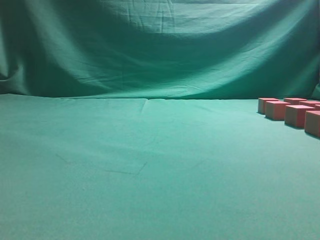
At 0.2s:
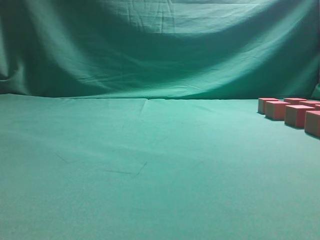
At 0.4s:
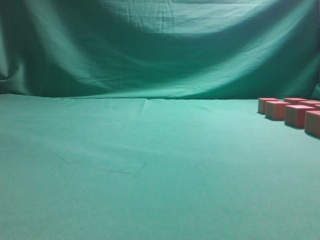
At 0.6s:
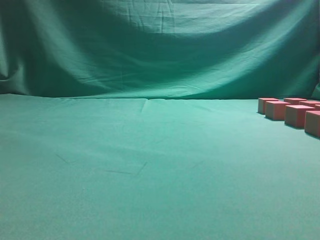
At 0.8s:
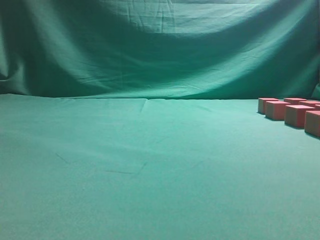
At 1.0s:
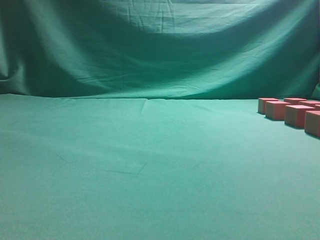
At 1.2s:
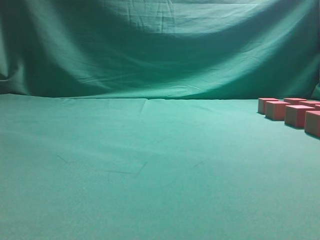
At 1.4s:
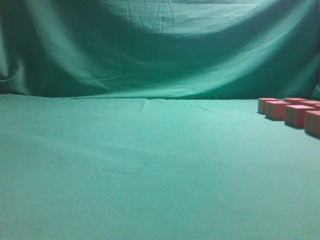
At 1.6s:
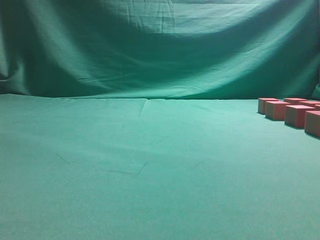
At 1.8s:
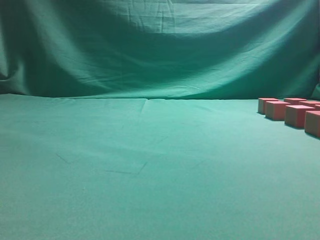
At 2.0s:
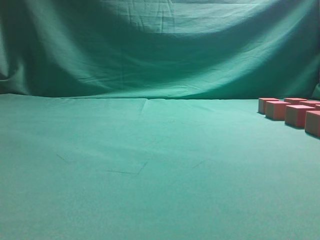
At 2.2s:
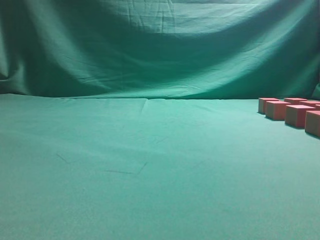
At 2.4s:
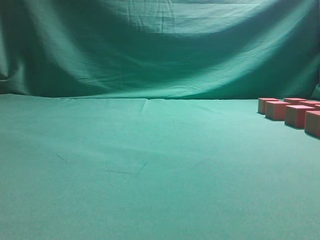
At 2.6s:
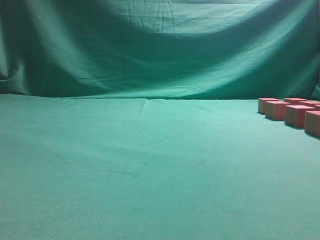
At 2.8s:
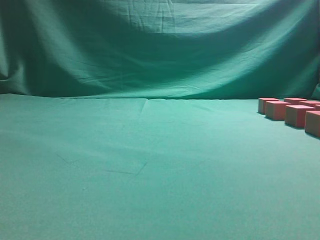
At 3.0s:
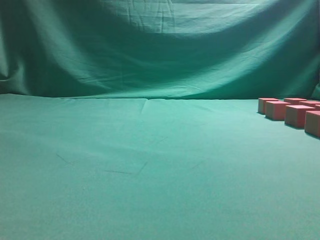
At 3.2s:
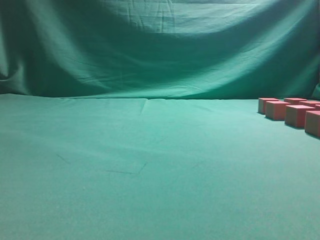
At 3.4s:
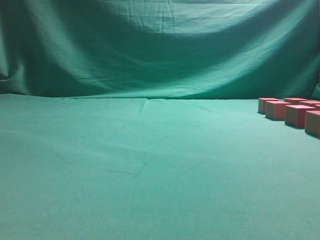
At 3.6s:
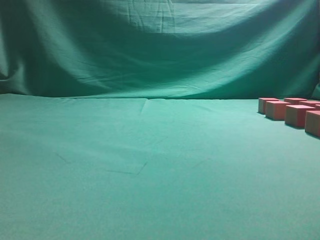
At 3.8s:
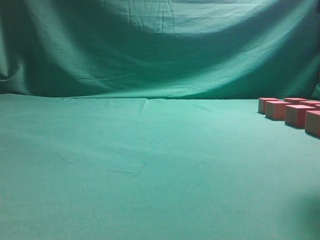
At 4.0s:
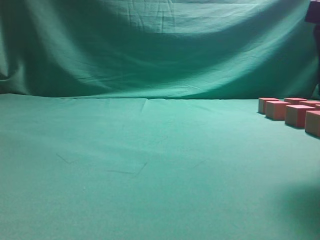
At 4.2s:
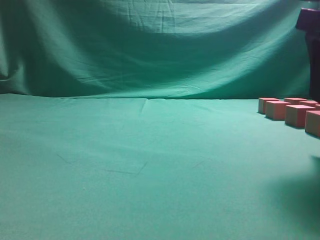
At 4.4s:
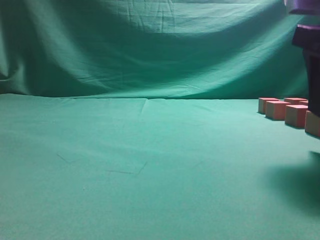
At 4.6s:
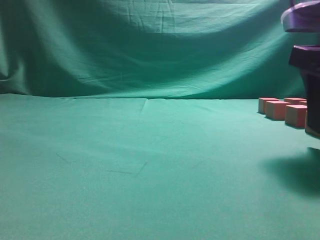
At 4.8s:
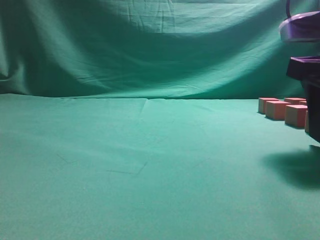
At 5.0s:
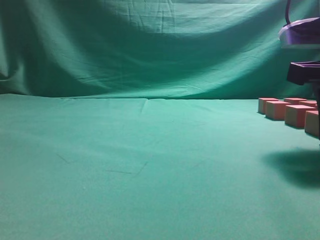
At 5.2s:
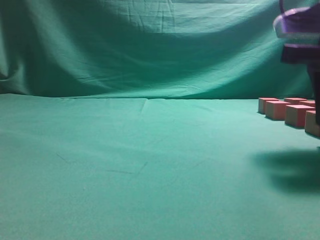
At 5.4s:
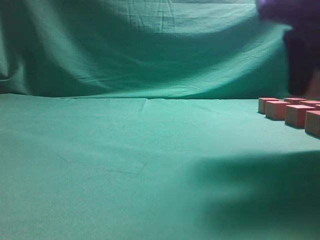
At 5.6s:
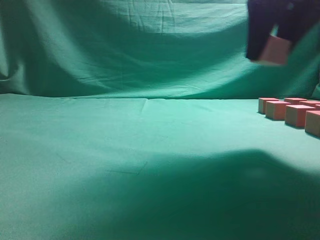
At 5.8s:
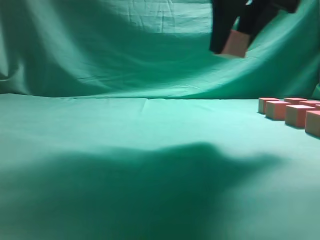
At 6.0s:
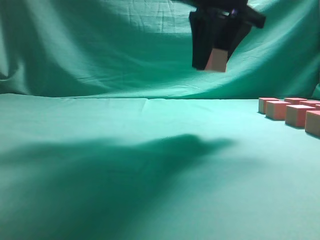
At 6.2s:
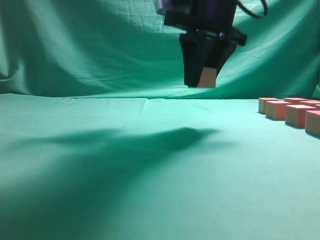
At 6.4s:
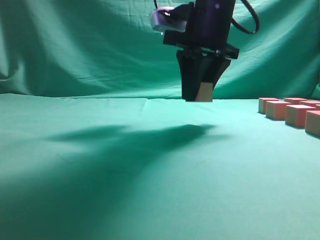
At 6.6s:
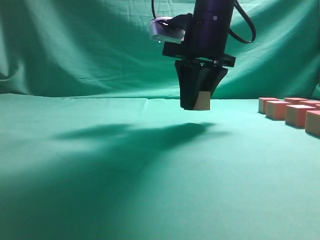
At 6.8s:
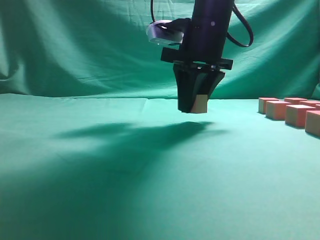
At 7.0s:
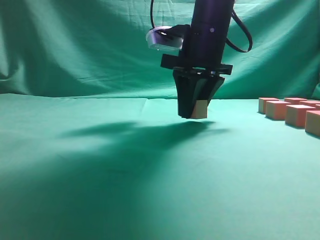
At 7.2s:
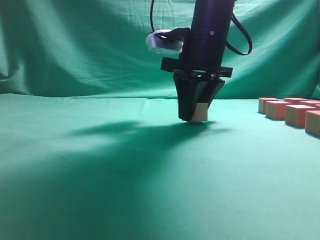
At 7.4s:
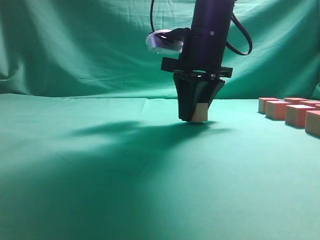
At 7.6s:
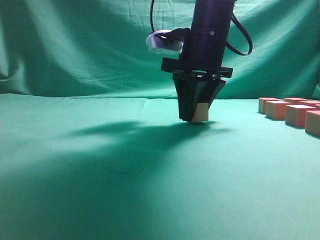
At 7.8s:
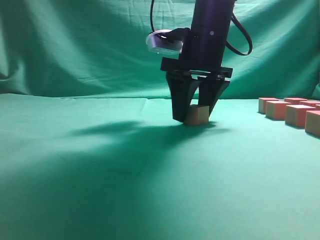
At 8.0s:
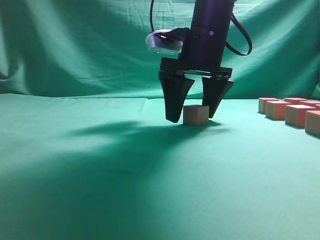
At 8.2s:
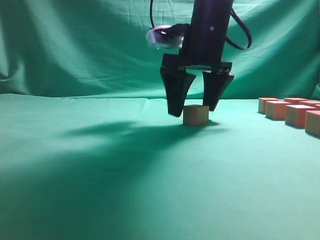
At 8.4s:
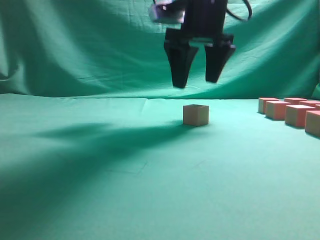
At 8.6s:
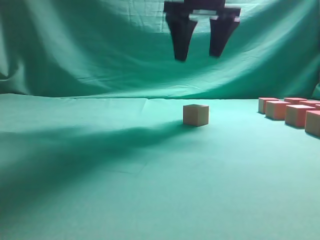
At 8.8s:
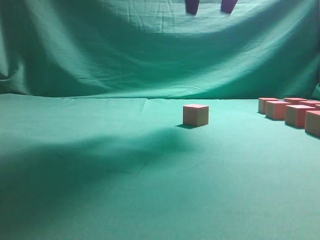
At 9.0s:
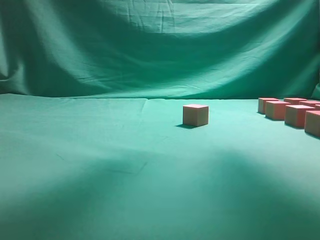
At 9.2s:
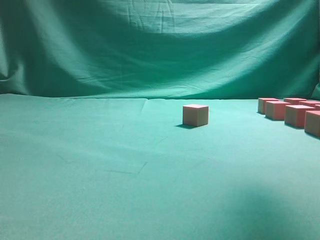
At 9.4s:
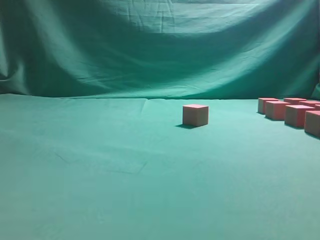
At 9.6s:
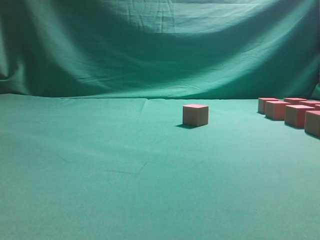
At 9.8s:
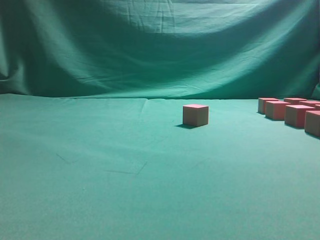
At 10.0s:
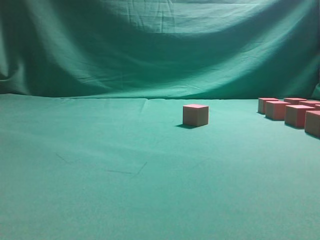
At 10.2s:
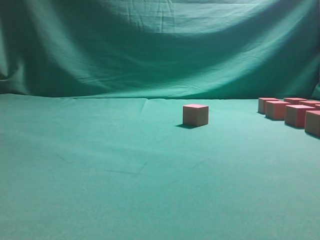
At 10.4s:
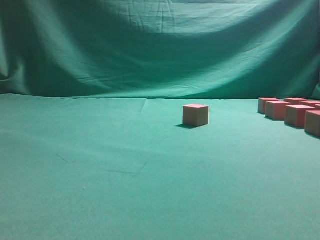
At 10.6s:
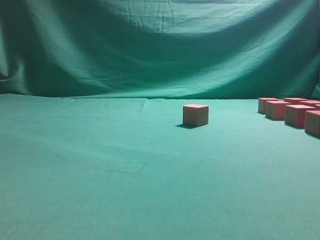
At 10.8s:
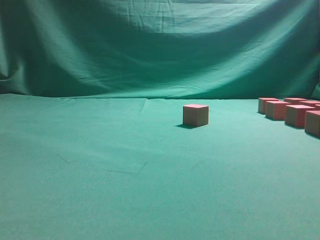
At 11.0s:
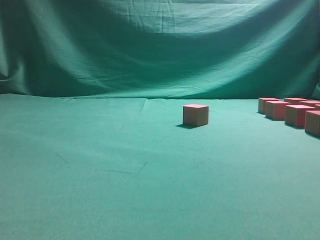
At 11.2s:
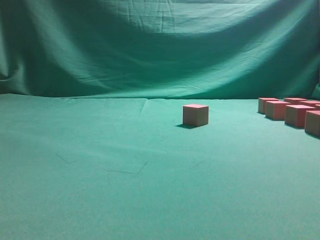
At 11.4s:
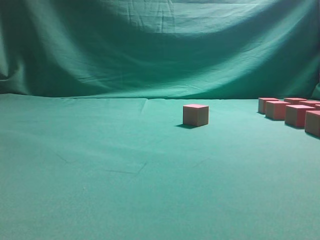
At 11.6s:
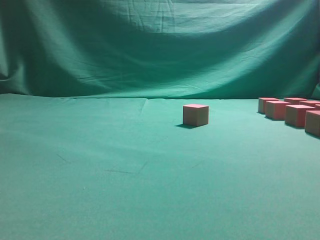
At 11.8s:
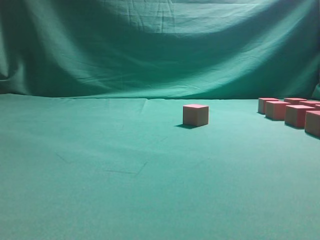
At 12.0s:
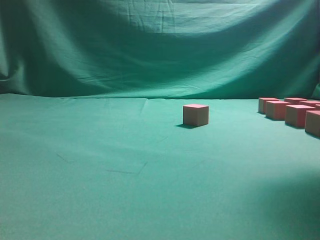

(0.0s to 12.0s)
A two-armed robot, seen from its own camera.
Task of the whole recording: pick up the multiple cubes in two columns one by one and place them in another position on the table.
Step, 0.0s - 5.2s: Pick up the block on the table.
Step, 5.4s - 8.6s: Place the block at the correct position to assemble the letter S.
Step, 8.8s - 11.8s: Pick up the block on the table.
3.0s - 4.4s: The right gripper travels forward, downward and to the left by roughly 15 cm, and opens.
4.4s - 6.0s: The right gripper is displaced to the left, forward and upward by some 15 cm, and closes up.
6.0s - 7.6s: The right gripper shifts approximately 10 cm downward.
7.6s - 9.0s: The right gripper travels upward and to the right by approximately 25 cm, and opens up.
9.0s - 10.4s: The right gripper travels downward, to the right and backward by about 25 cm.
10.4s - 12.0s: The right gripper moves upward, approximately 5 cm, and closes up.

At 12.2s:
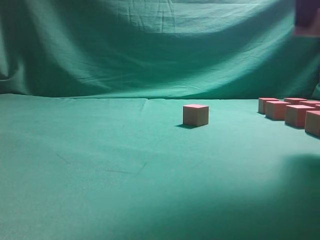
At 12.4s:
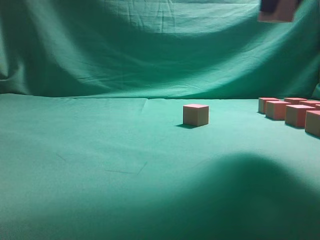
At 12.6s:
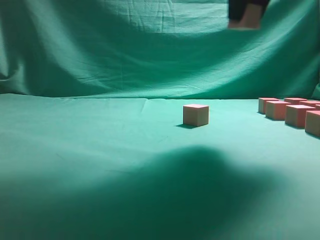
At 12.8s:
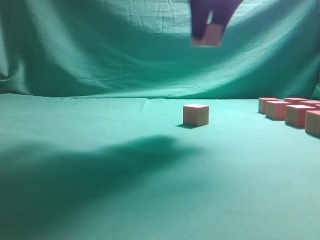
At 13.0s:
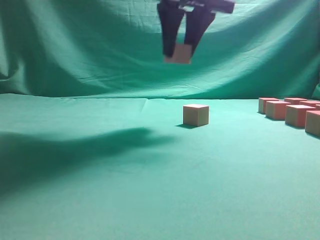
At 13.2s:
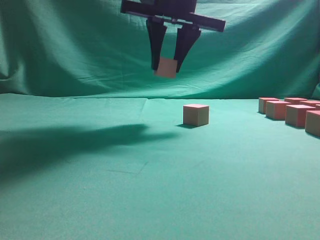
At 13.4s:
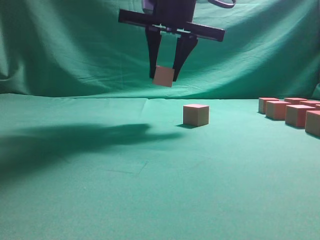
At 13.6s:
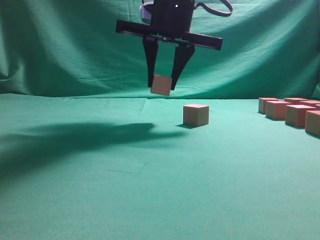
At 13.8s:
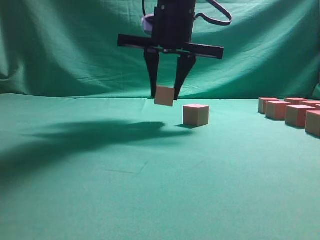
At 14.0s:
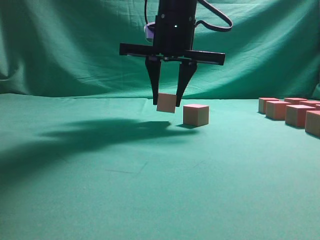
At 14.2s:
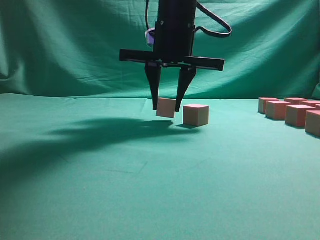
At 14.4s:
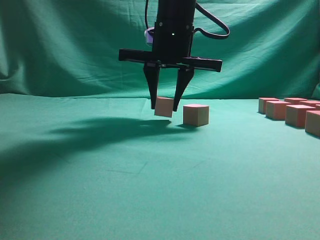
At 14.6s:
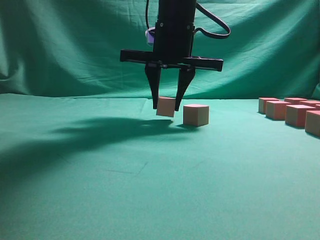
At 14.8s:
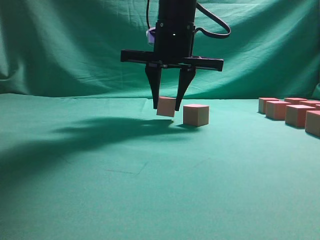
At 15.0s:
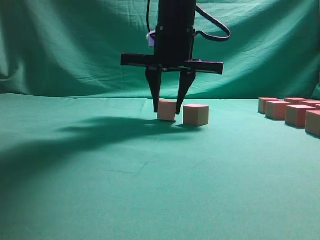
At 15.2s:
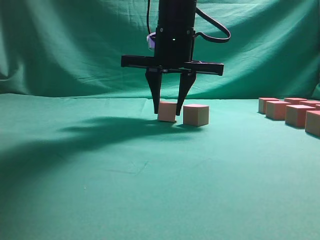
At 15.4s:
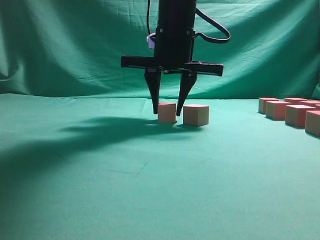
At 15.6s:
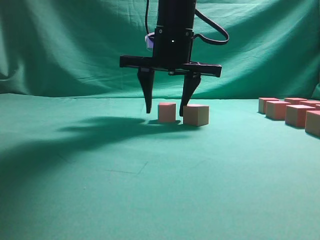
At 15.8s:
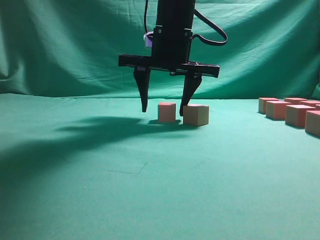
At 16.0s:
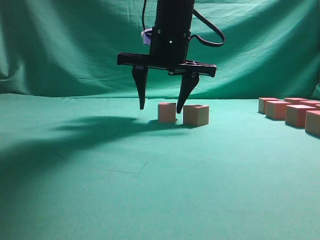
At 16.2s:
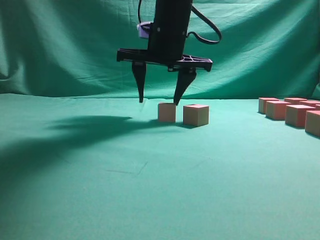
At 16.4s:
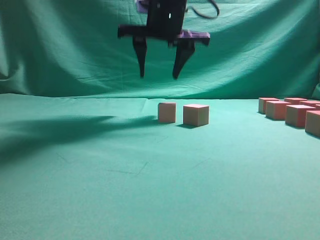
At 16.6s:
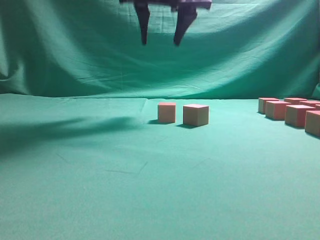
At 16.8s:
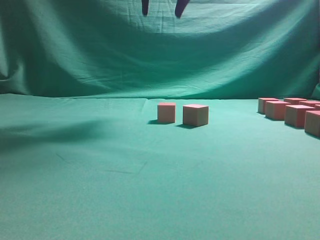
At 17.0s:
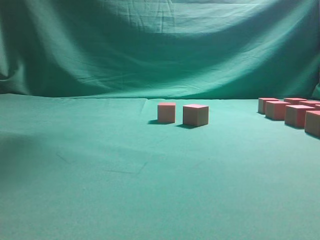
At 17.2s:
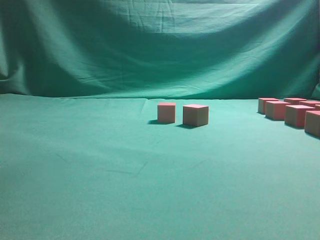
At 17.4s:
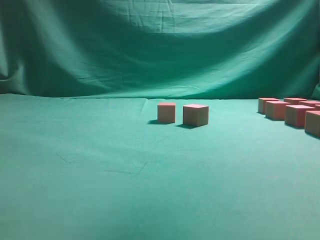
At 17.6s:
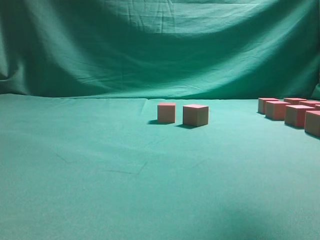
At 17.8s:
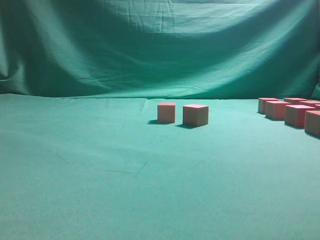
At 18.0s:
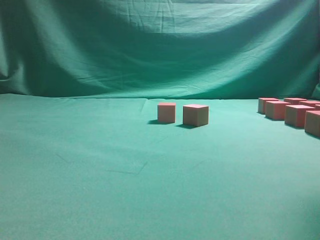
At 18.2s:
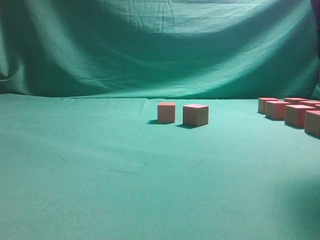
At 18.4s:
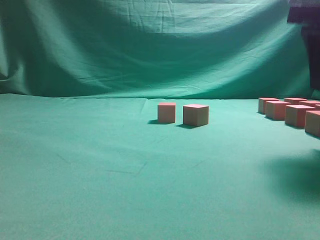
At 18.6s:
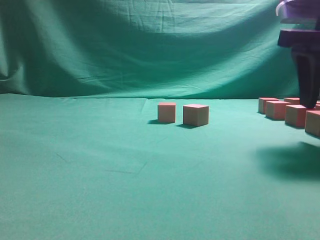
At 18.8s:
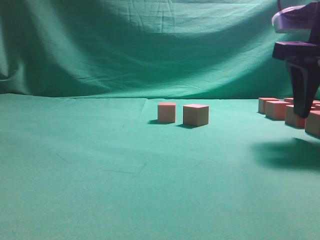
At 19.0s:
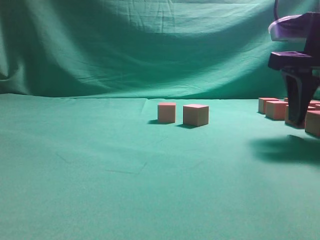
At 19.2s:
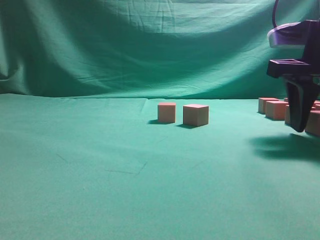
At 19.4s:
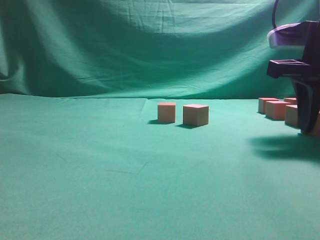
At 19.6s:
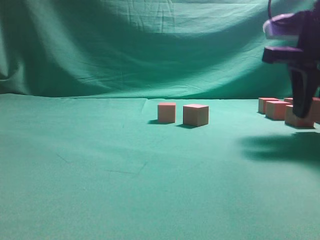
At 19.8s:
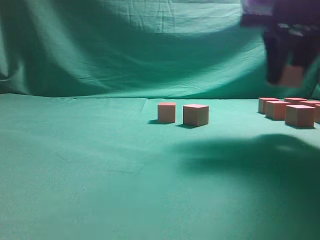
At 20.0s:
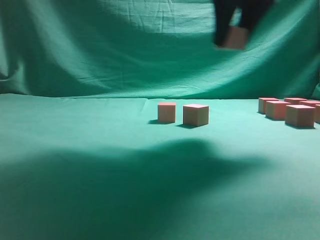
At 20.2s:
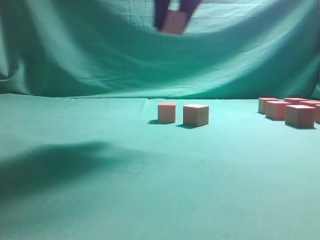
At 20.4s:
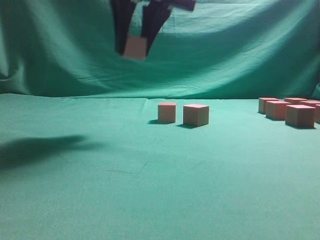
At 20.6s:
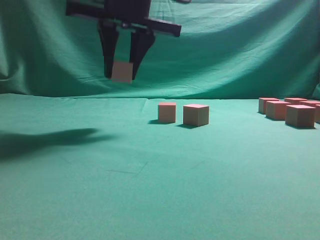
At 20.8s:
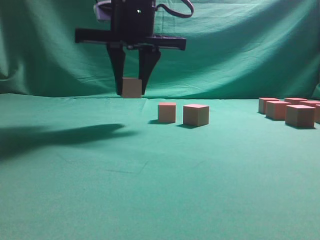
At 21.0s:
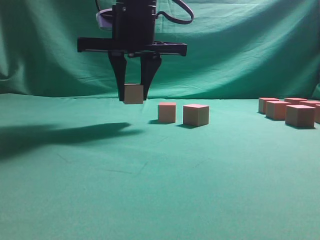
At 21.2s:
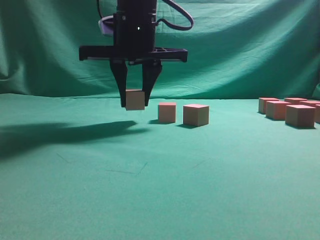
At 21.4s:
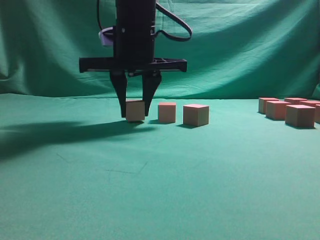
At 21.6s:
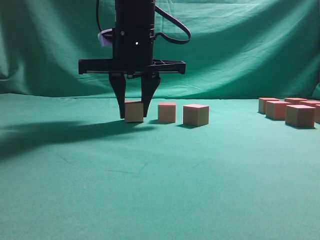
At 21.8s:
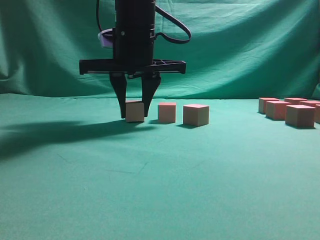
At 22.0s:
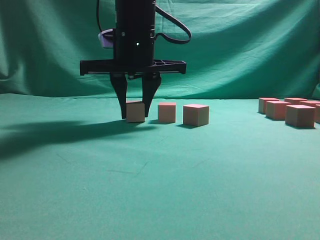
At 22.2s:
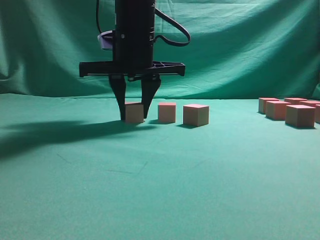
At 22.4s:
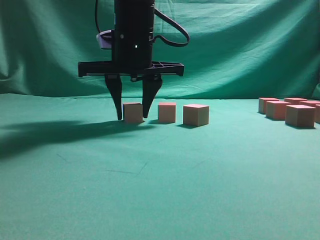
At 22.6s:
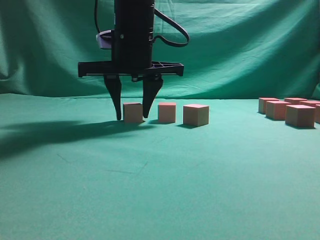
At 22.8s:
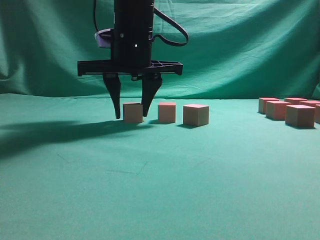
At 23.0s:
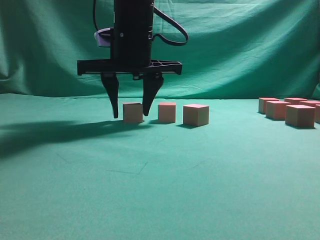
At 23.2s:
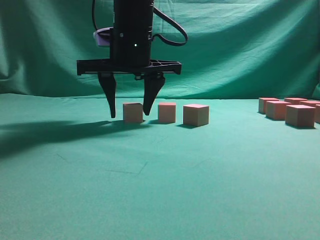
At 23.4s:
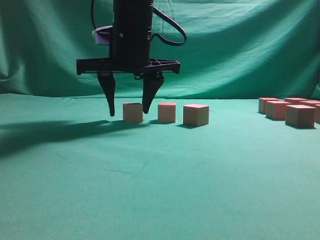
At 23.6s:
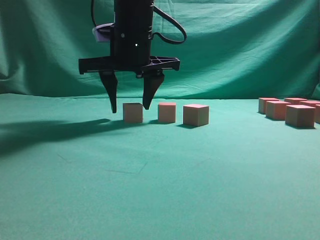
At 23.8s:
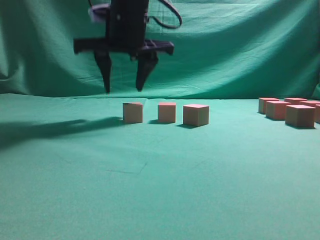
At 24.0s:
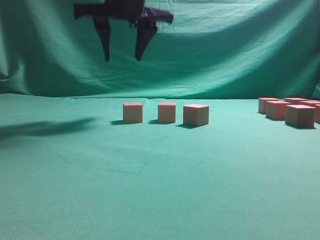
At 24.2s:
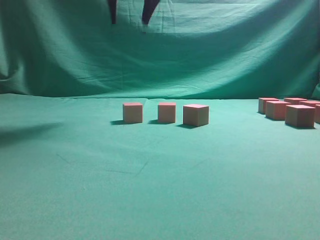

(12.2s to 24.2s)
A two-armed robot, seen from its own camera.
Task of the whole recording: pick up the multiple cubes in two columns one by one and place them in another position on the table.
Step, 12.2s - 16.6s: Place the block at the correct position to assemble the letter S.
Step, 16.8s - 19.6s: Pick up the block on the table.
Step, 19.8s - 24.0s: Place the block at the correct position to assemble the letter S.
12.2s - 13.8s: The right gripper travels to the left, forward and downward by approximately 25 cm.
13.8s - 15.2s: There are only small adjustments of the grippers.
15.2s - 16.6s: The right gripper moves upward, approximately 10 cm.
16.6s - 18.2s: The right gripper heads to the right and backward, covering roughly 25 cm.
18.2s - 19.8s: The right gripper travels forward by approximately 5 cm, and goes downward and returns, roughly 10 cm each way.
19.8s - 21.2s: The right gripper heads to the left, covering about 20 cm.
21.2s - 22.6s: The grippers make only small movements.
22.6s - 24.2s: The right gripper moves upward, about 15 cm.
